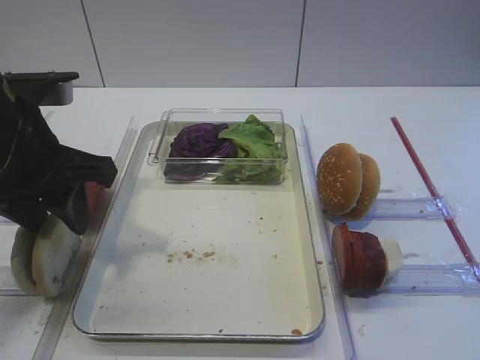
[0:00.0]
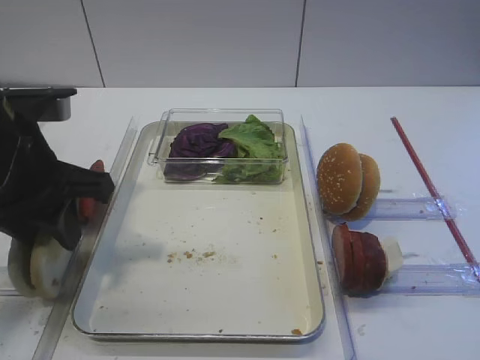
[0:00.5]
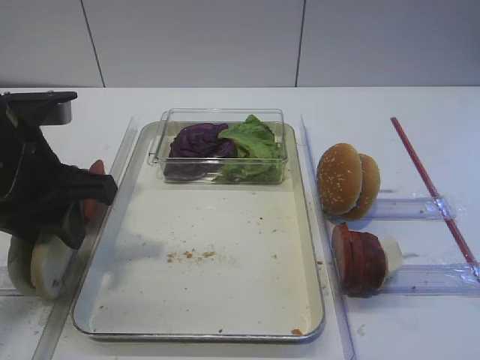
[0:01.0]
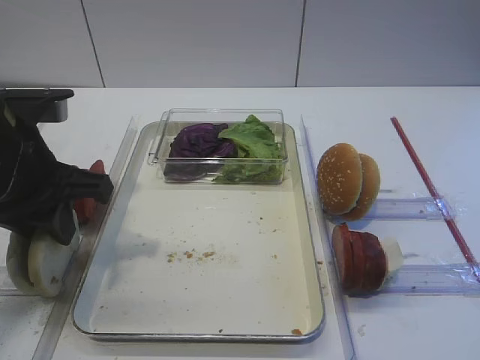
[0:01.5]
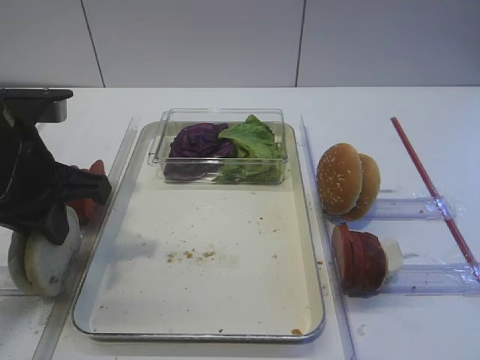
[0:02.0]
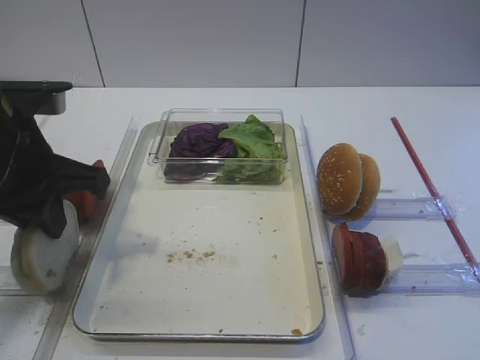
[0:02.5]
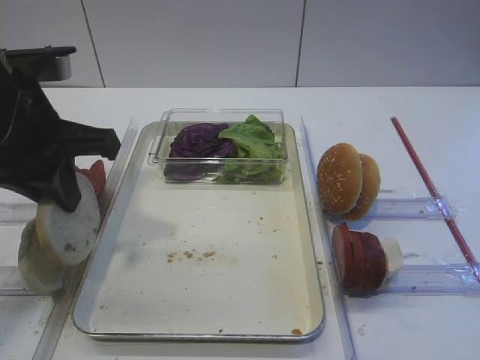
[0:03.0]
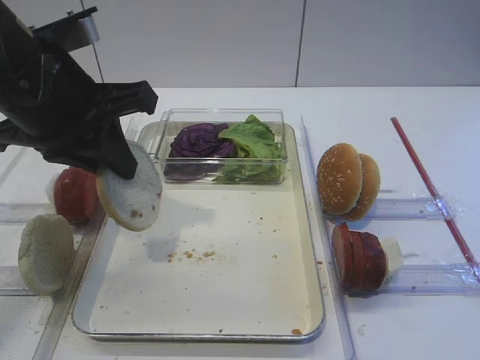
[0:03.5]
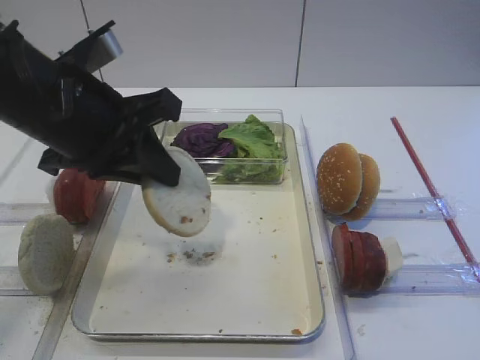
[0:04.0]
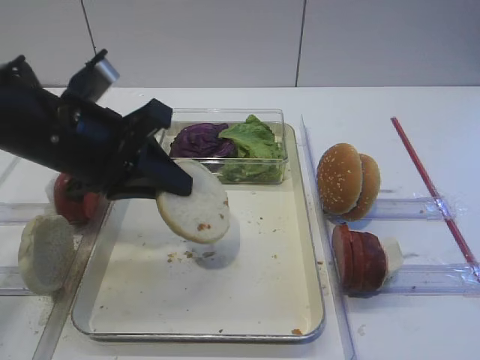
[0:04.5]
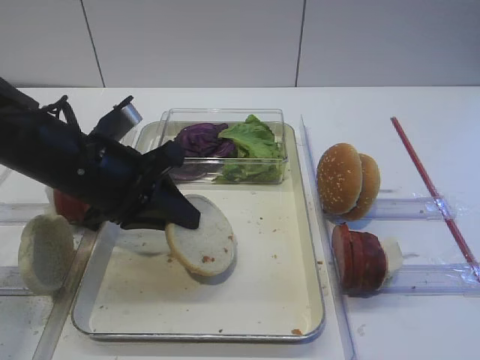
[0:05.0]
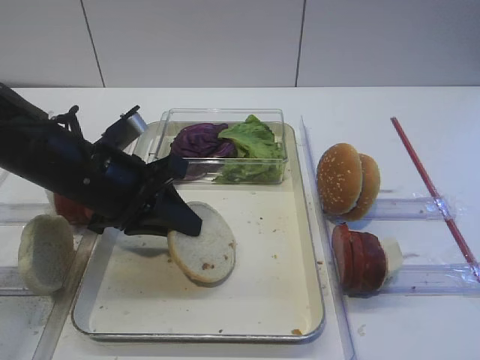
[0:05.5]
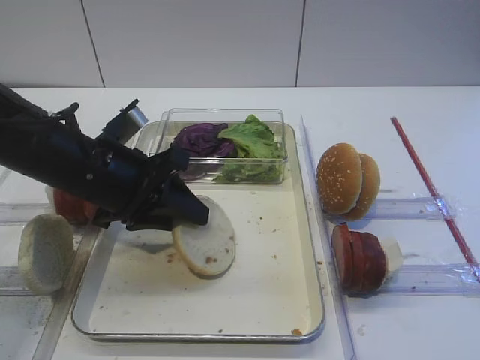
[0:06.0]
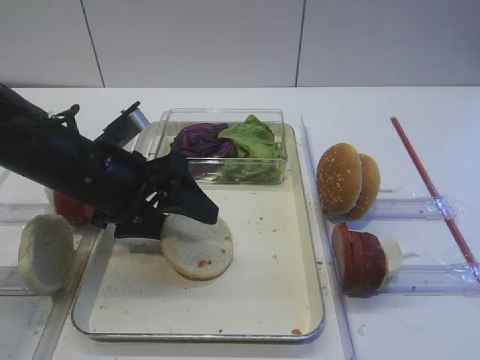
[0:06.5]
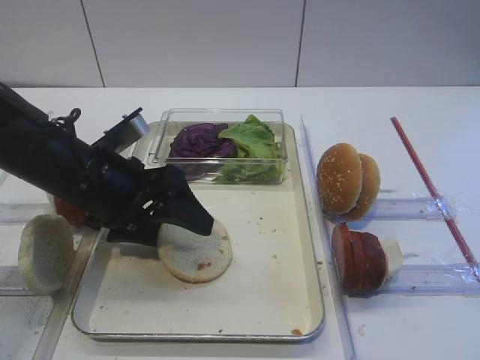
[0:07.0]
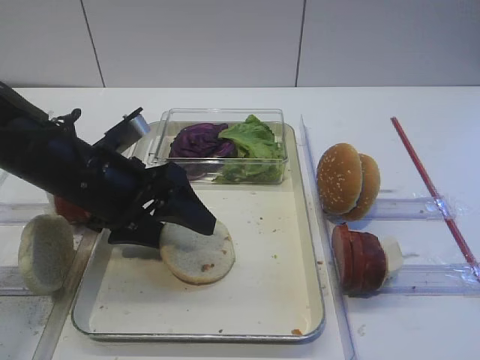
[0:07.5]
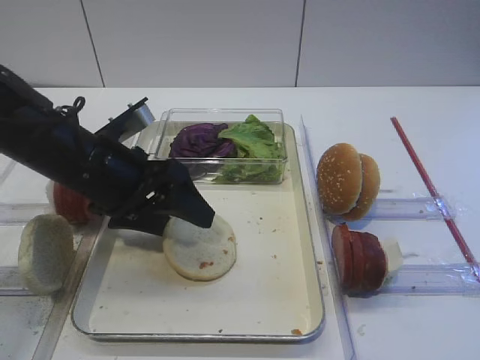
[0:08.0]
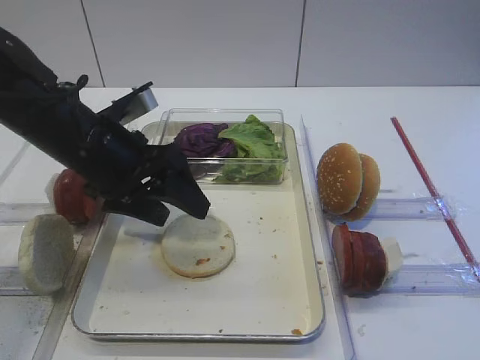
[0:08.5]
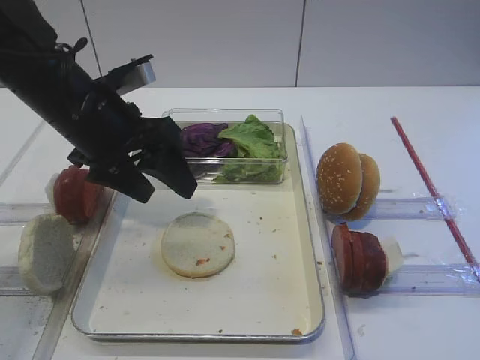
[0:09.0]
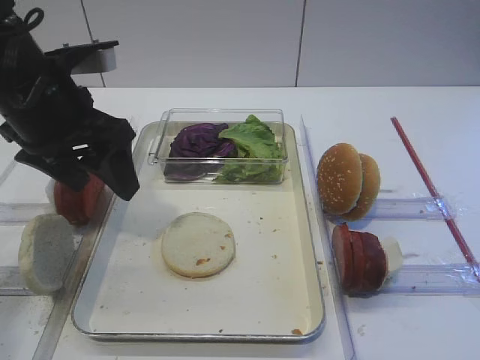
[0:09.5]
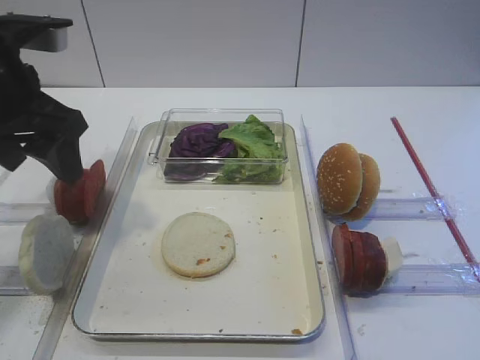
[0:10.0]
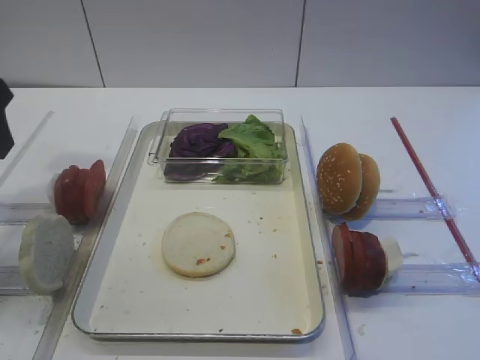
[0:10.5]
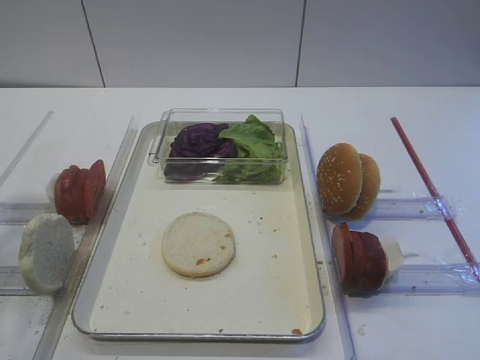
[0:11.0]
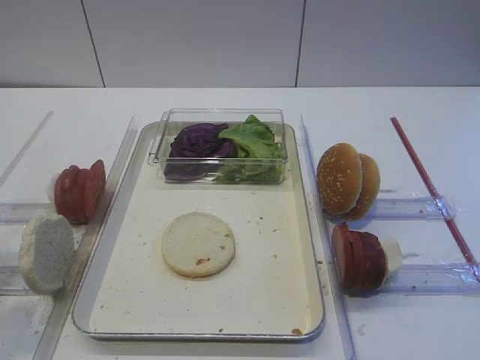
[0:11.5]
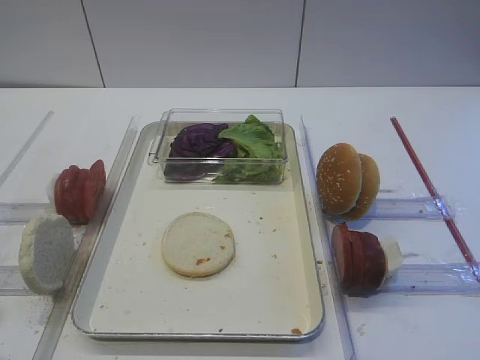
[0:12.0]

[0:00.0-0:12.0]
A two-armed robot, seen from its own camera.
Step, 0:00.0 to 0:03.0: Pick up the bread slice with the left gripper.
Step, 0:03.5 to 0:09.0: Place the bread slice on the tray with the left gripper.
0:00.0 to 0:02.0: The left gripper closes up.
0:02.0 to 0:04.0: The left gripper changes place by roughly 5 cm.
0:04.0 to 0:06.0: The left gripper travels downward by about 10 cm.
0:06.0 to 0:08.0: The left gripper opens.
0:08.0 to 0:10.0: The left gripper is displaced upward and to the left by approximately 15 cm.
0:10.0 to 0:12.0: The left gripper is displaced backward by roughly 20 cm.

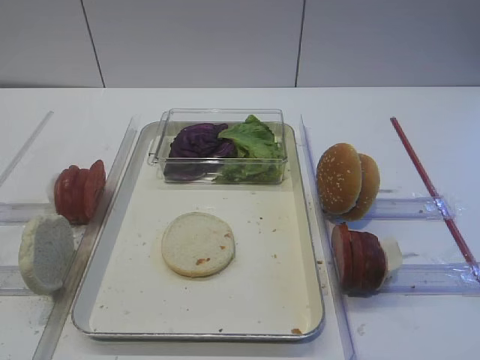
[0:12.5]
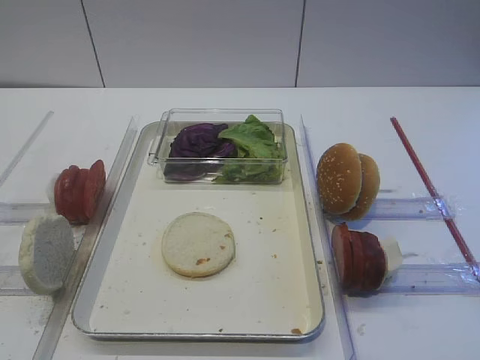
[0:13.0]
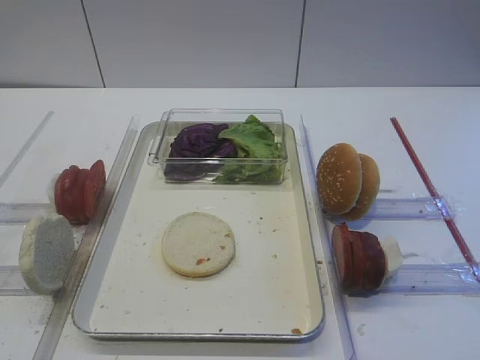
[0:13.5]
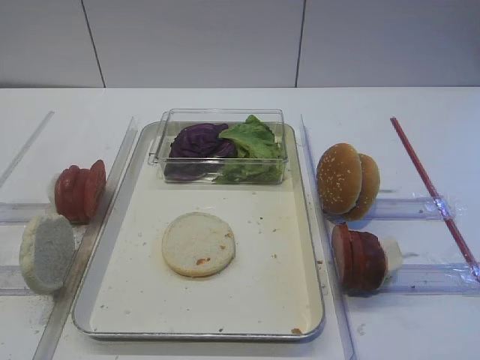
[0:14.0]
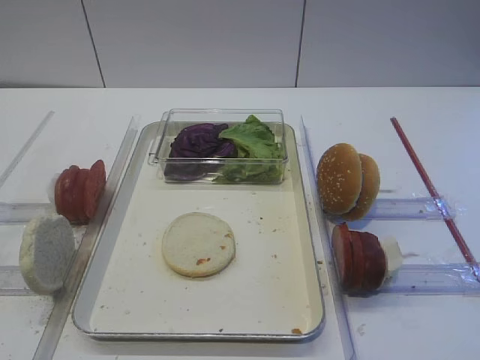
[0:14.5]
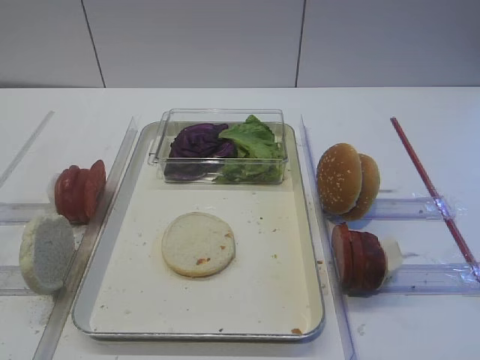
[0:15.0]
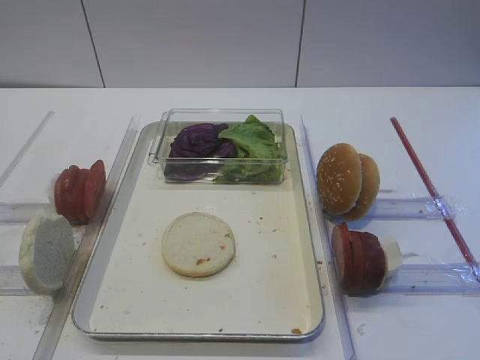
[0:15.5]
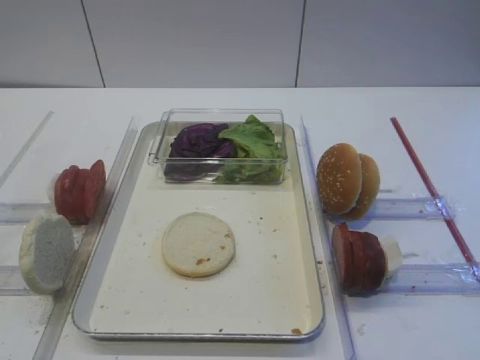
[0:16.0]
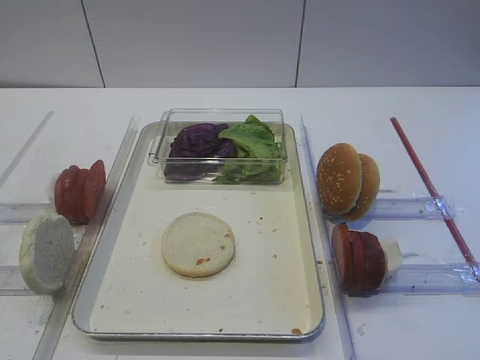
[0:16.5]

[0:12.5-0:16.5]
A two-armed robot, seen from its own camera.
0:14.5 to 0:16.5: The two grippers keep their place.

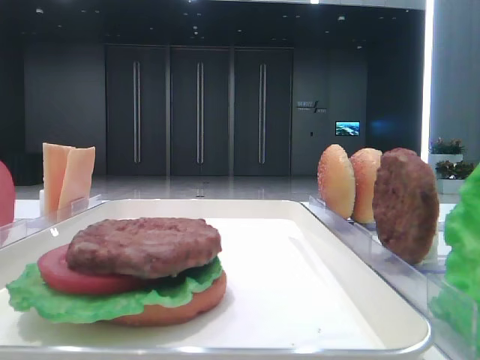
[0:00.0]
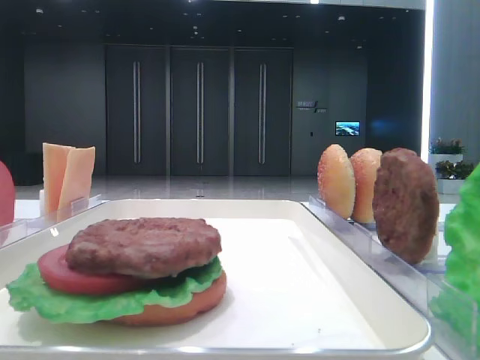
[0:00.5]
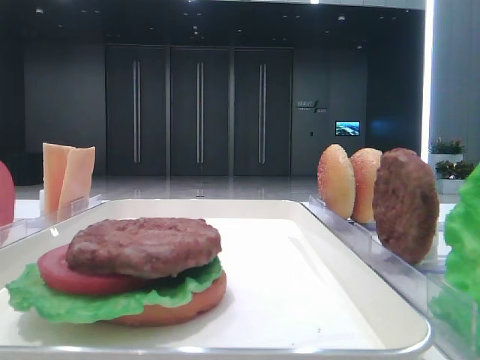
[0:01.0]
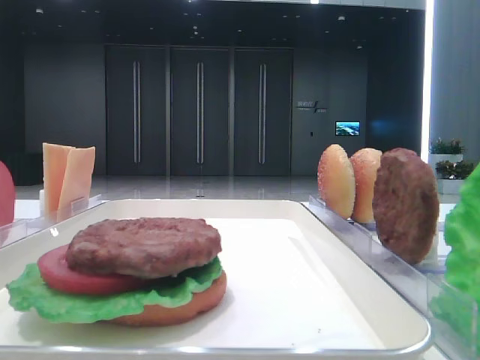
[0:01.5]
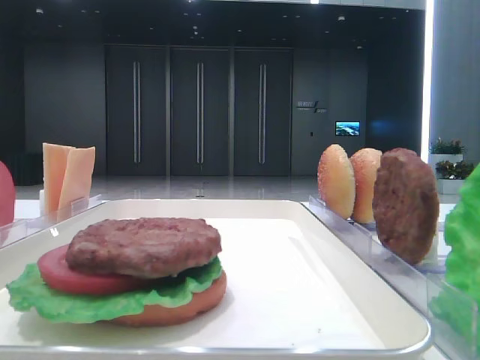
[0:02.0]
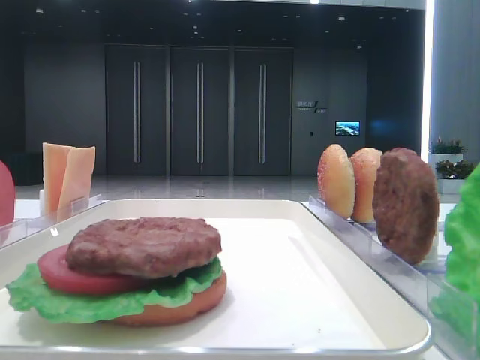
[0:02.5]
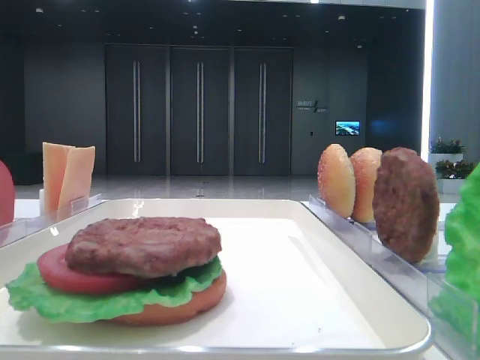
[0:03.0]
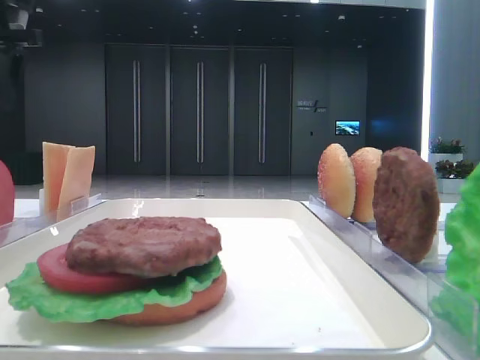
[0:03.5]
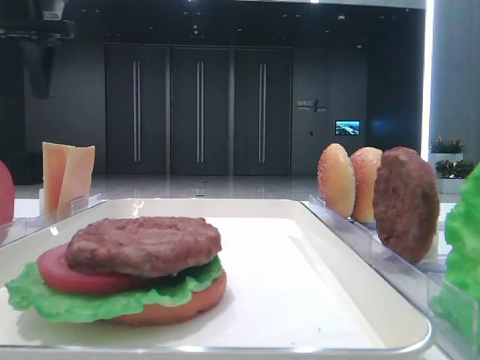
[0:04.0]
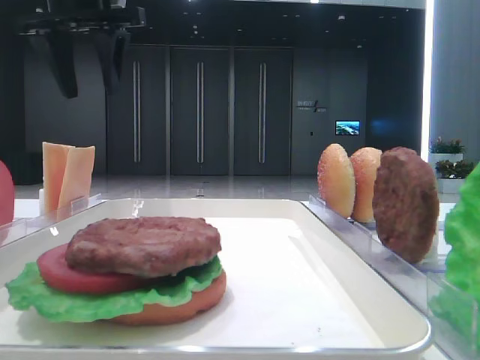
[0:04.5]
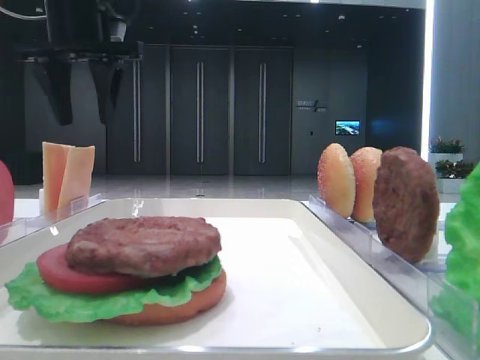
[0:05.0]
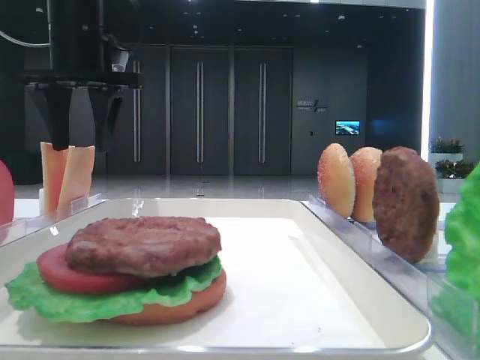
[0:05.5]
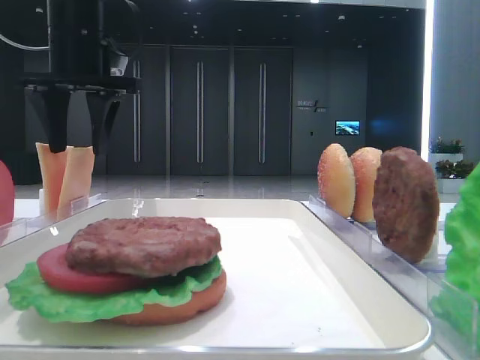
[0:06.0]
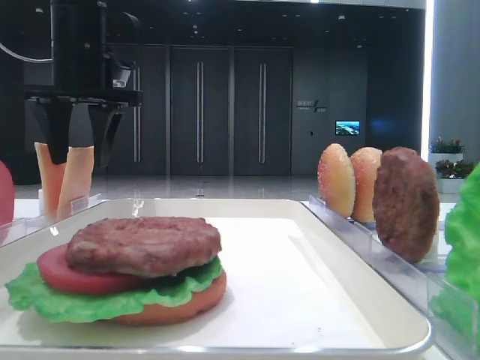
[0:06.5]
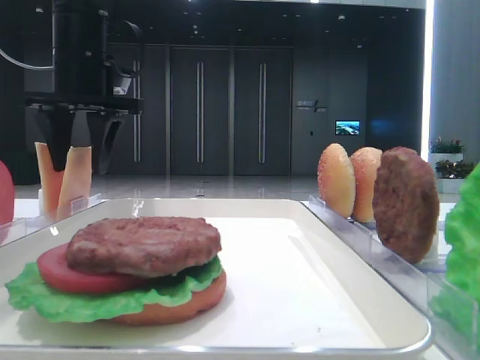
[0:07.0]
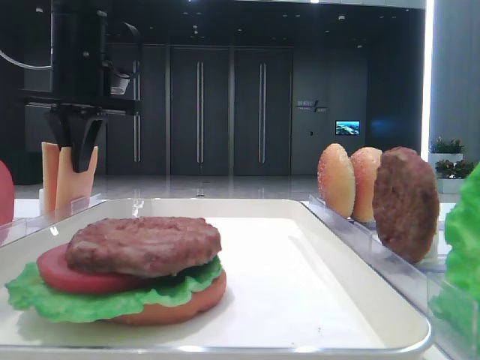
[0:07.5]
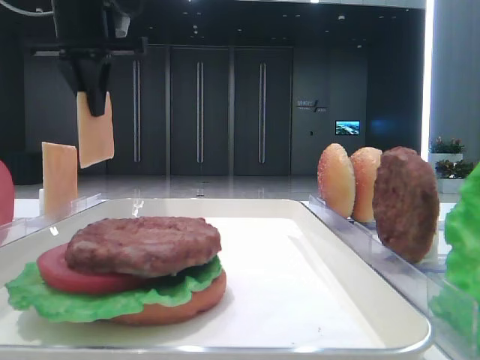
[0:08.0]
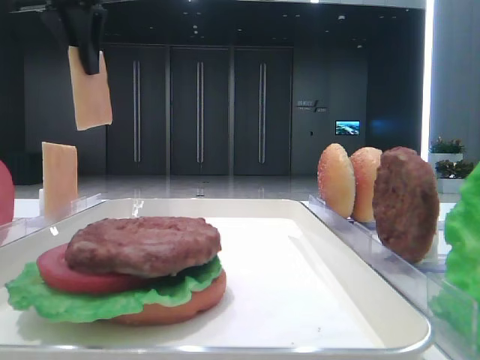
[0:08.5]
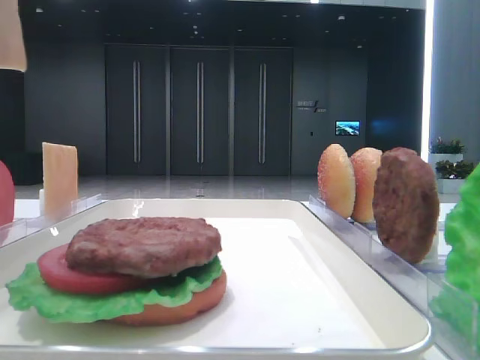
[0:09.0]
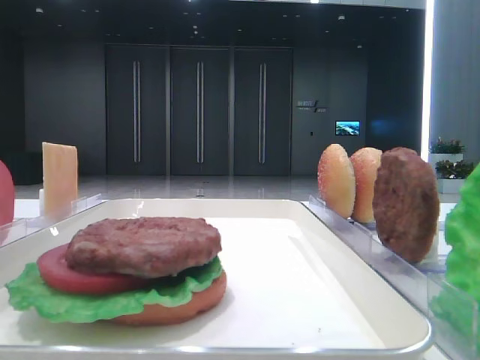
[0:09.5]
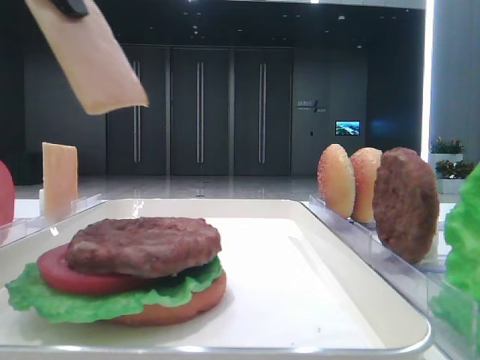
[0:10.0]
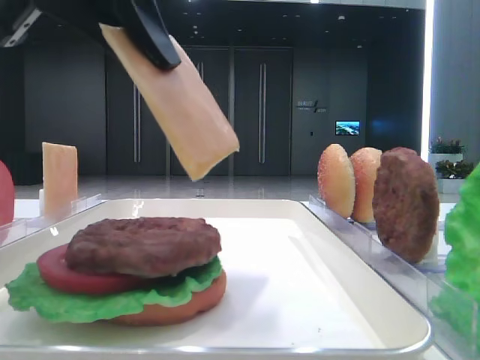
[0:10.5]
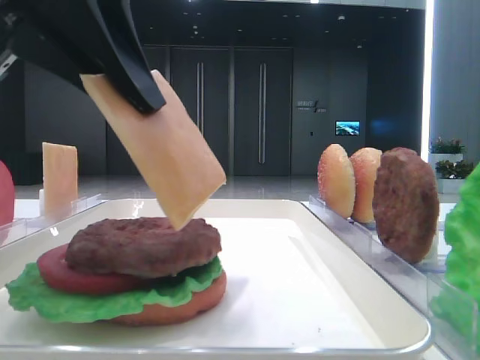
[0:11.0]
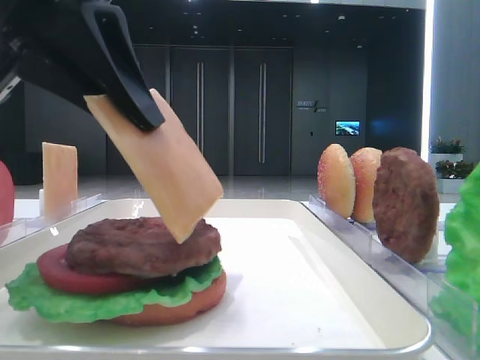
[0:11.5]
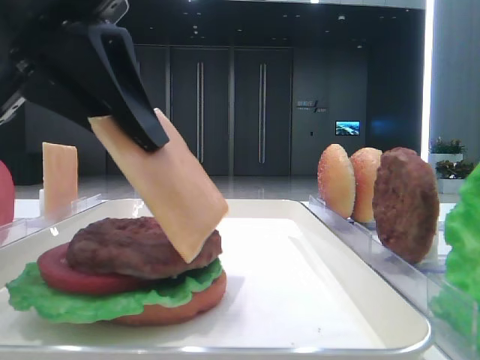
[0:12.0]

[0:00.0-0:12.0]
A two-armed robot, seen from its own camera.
Step, 0:00.0 to 0:07.5: Pick up the cheese slice with the left hand.
0:02.0 to 0:04.0: The left gripper goes roughly 40 cm forward.
0:04.0 to 0:06.0: The left gripper shifts roughly 10 cm to the right and downward.
0:06.0 to 0:08.0: The left gripper closes its fingers.
0:08.0 to 0:10.0: The left gripper is displaced backward by about 20 cm.
0:10.0 to 0:12.0: The left gripper is displaced downward by approximately 10 cm.
